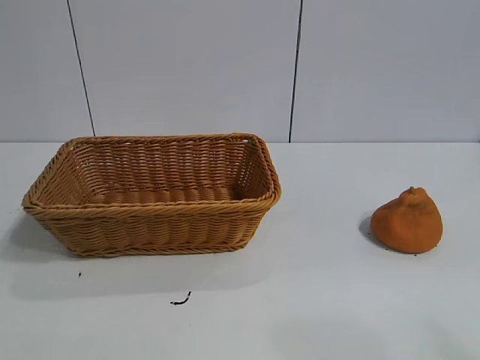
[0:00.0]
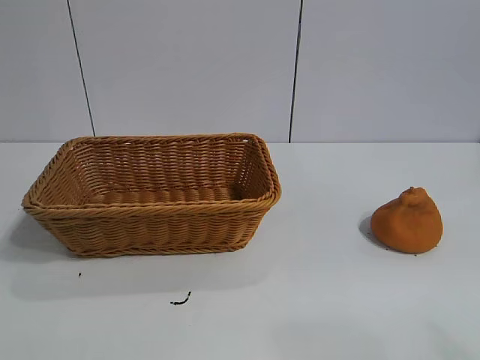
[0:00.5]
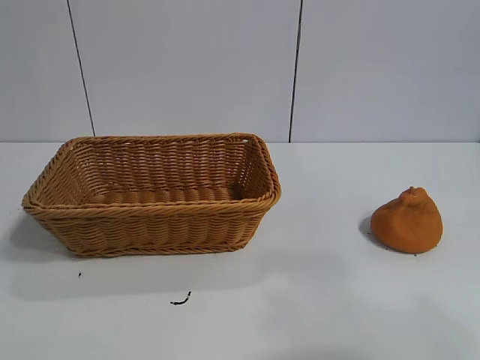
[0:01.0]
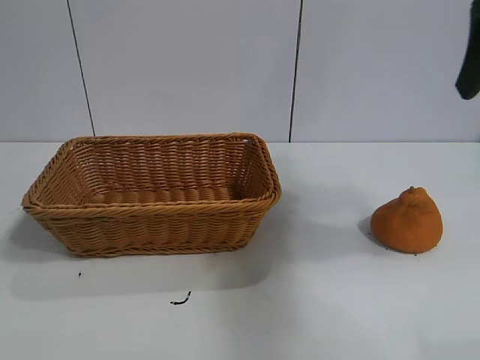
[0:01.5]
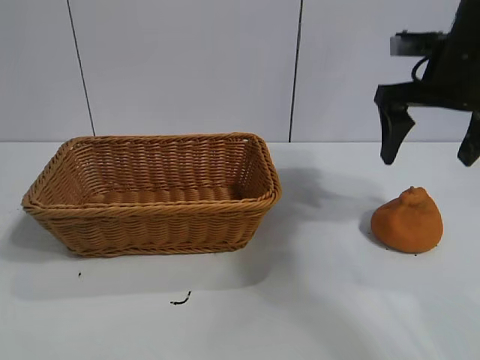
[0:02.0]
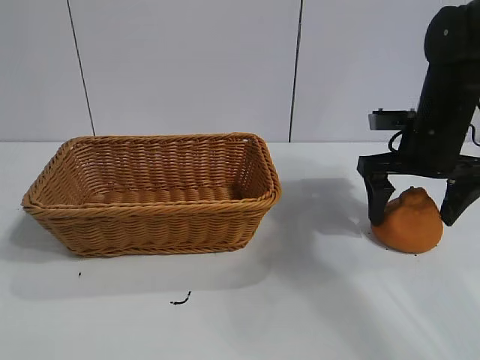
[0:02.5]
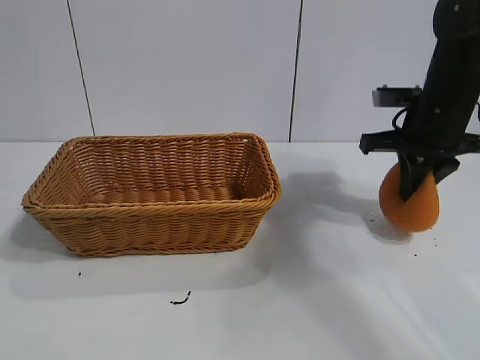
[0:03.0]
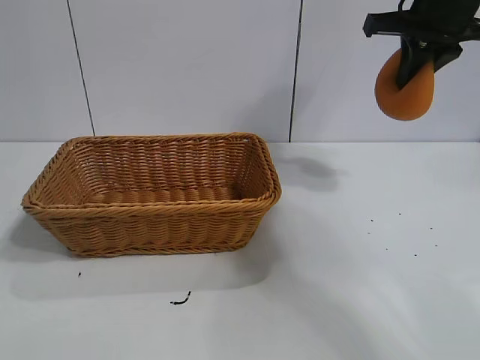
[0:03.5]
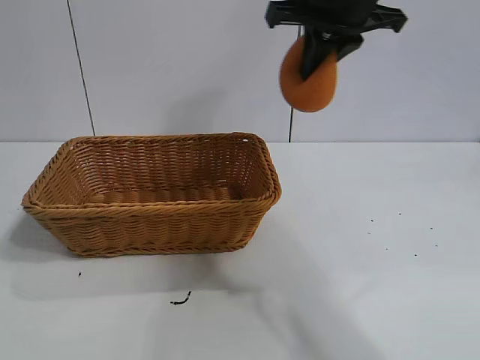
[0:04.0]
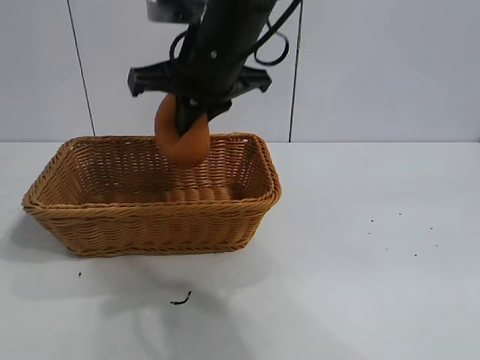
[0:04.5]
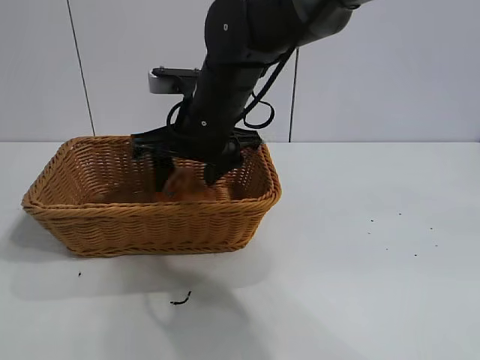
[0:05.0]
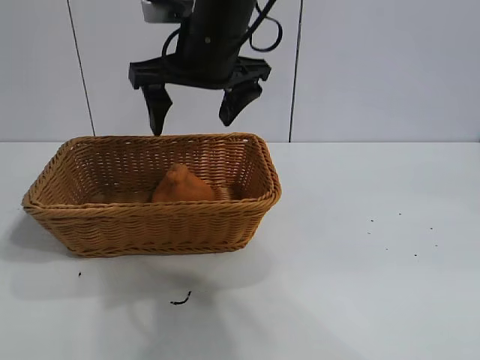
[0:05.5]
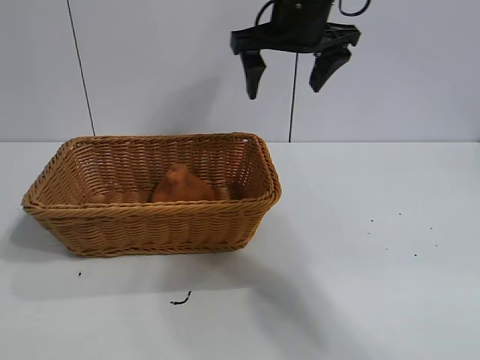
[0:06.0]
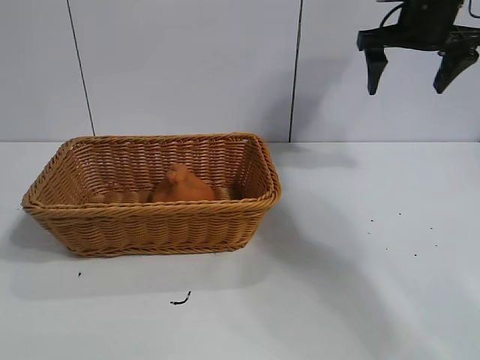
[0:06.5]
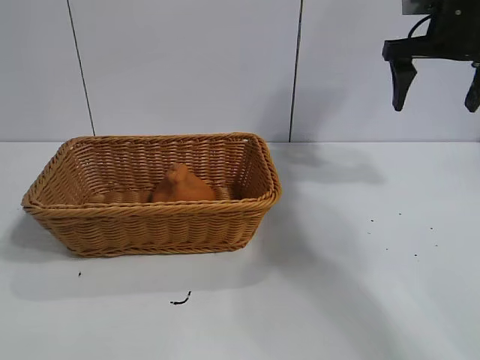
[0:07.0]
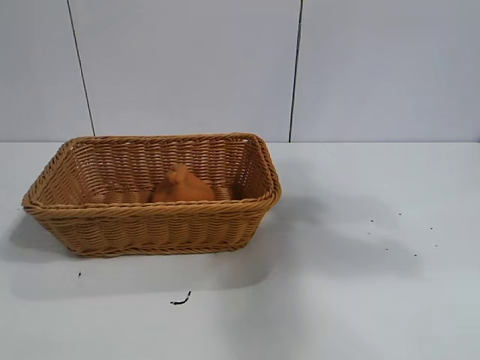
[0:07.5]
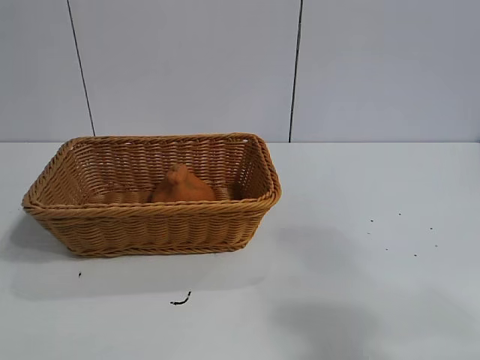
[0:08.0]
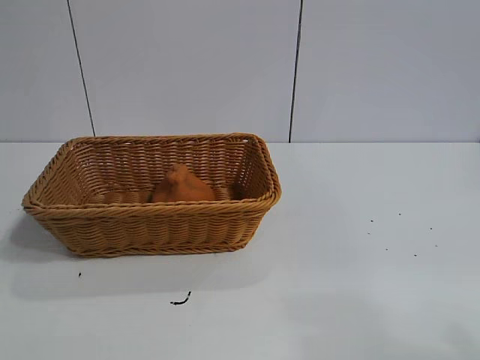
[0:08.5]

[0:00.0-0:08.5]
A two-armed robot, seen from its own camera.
Task of the whole recording: pick up the orange and put it into the basket.
Step, 0:01.0 to 0:02.5: Grasp the orange with right gripper.
Step, 0:03.0 to 0:05.0: Place the orange in the basket with right gripper.

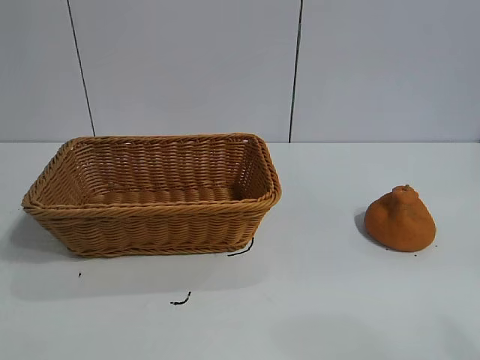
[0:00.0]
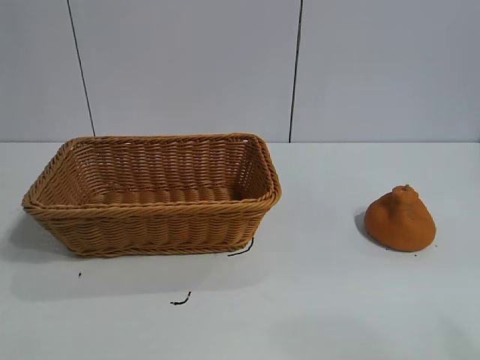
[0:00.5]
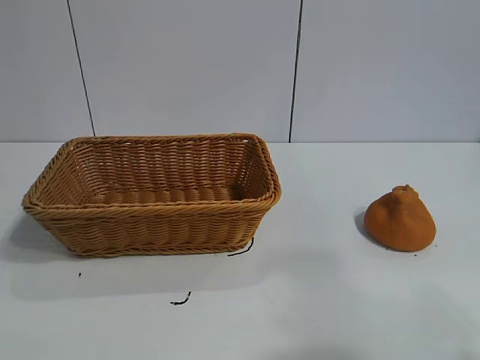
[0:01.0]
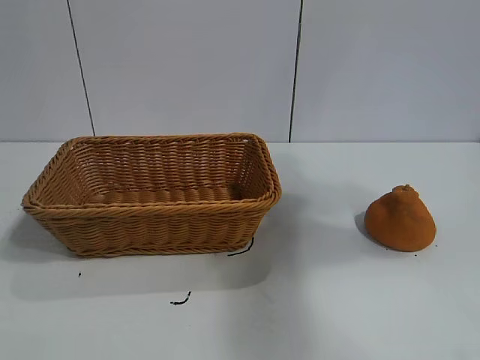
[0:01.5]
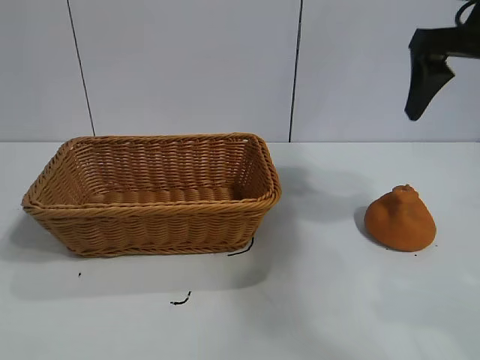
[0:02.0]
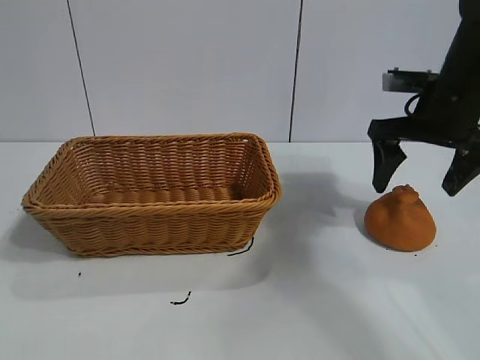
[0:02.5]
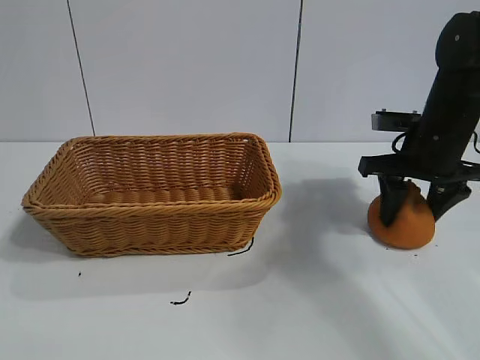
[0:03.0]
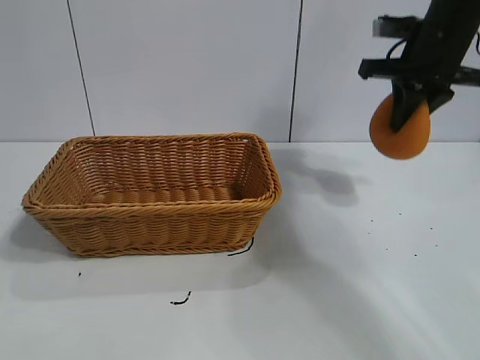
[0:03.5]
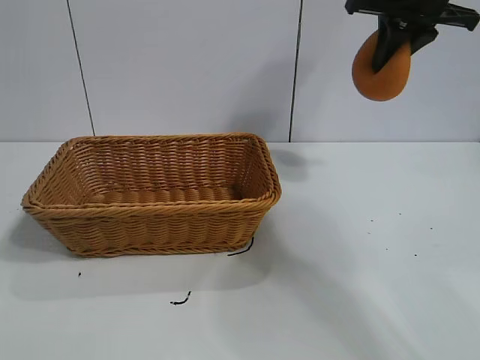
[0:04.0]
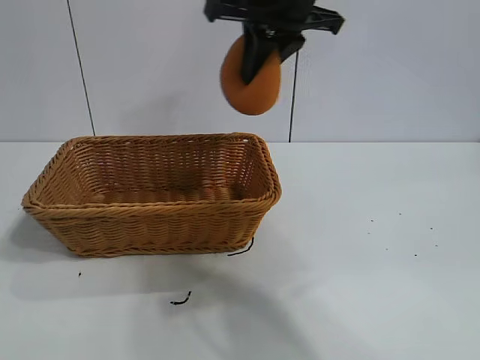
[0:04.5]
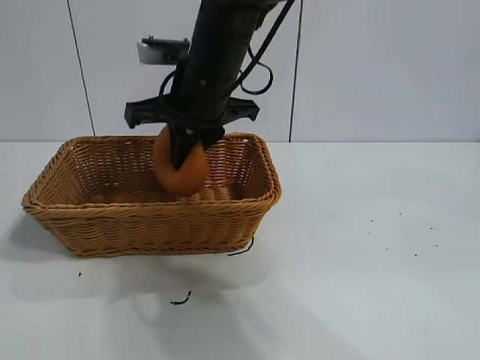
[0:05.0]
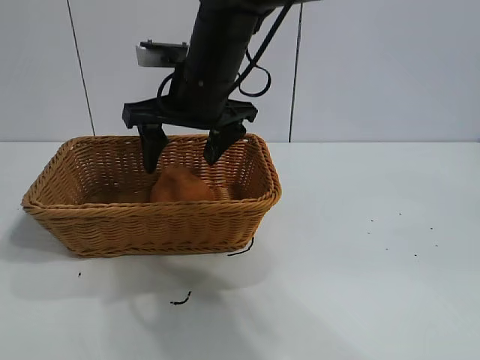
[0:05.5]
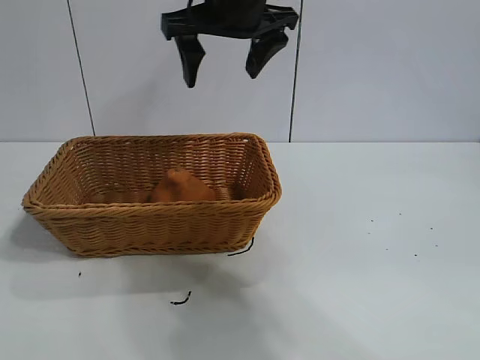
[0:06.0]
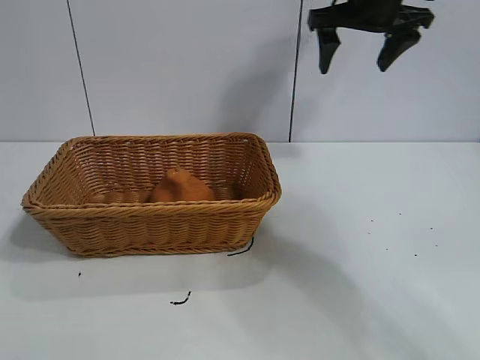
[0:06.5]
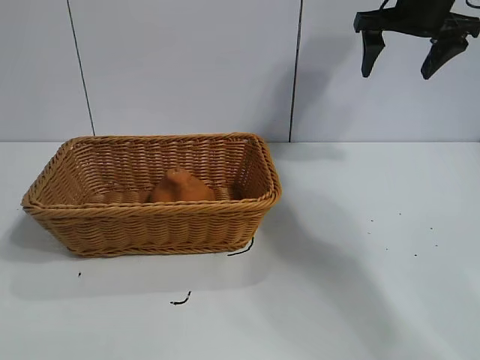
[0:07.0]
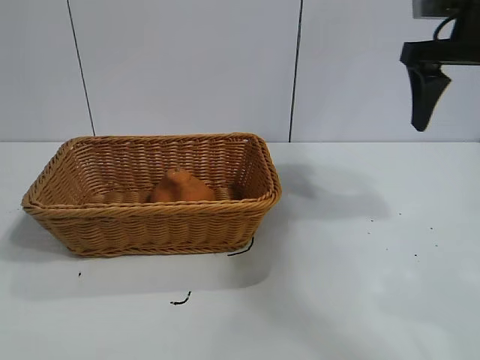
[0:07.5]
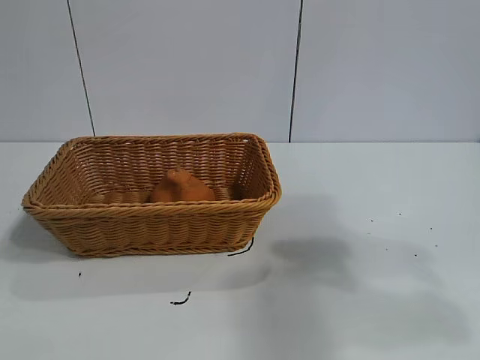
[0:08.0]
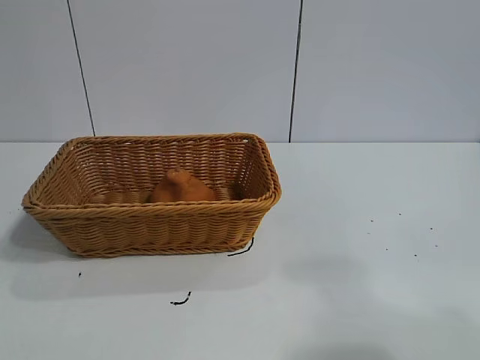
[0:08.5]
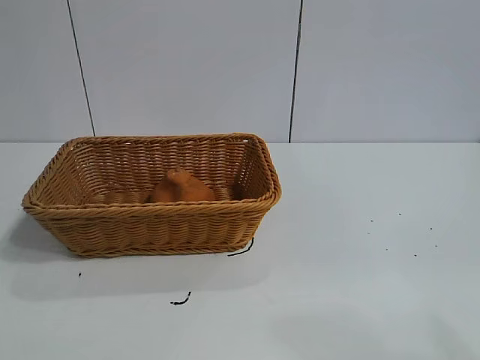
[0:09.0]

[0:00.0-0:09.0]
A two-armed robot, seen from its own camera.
Task of the whole recording: pick up the orange and put it into the basket.
Step, 0:01.0 to 0:03.0: Grasp the orange with right gripper.
Step, 0:03.5 to 0:05.0: Place the orange in the basket with right gripper.

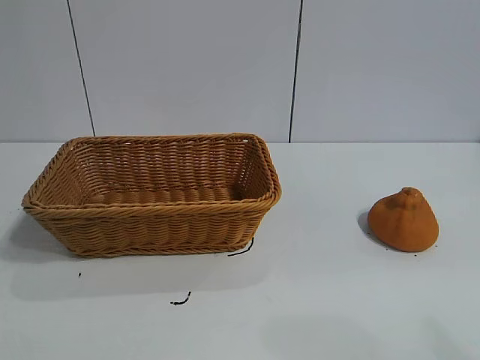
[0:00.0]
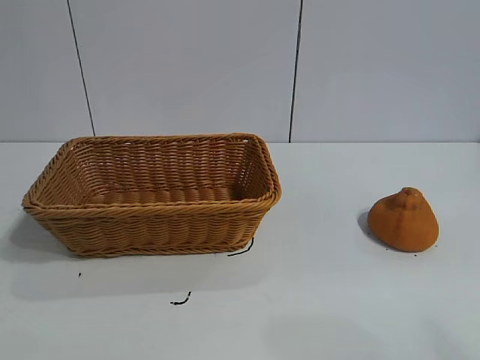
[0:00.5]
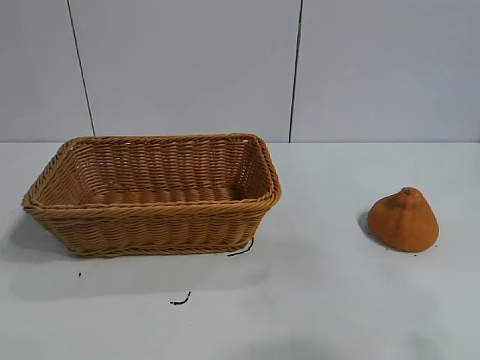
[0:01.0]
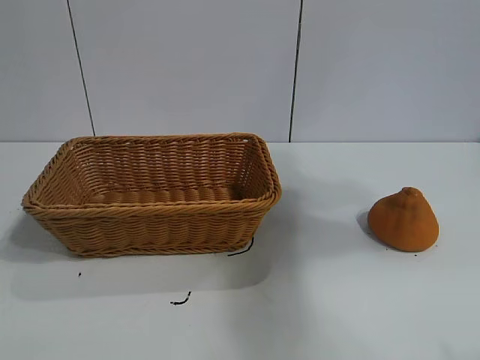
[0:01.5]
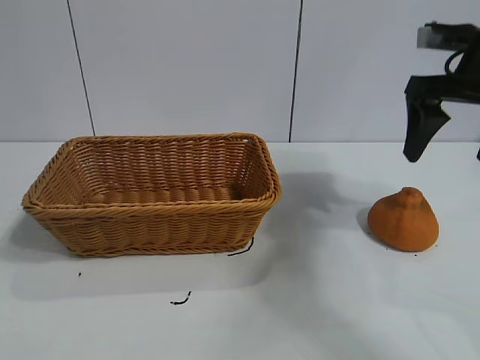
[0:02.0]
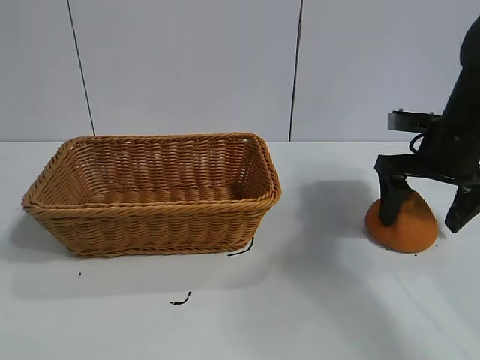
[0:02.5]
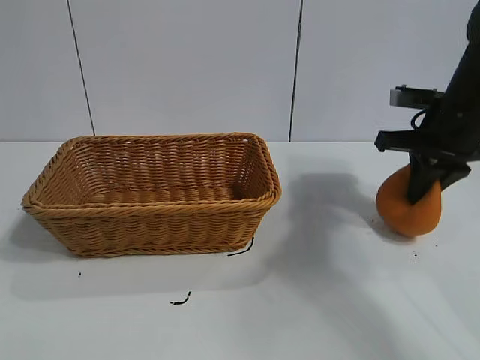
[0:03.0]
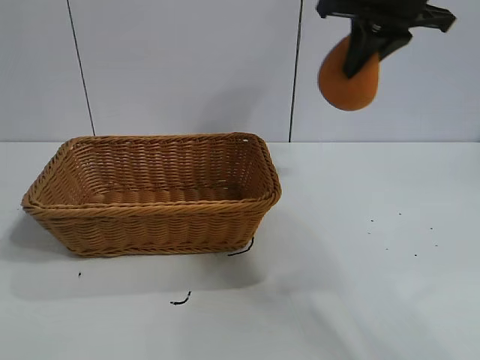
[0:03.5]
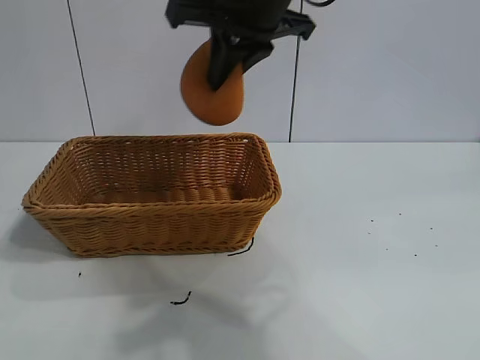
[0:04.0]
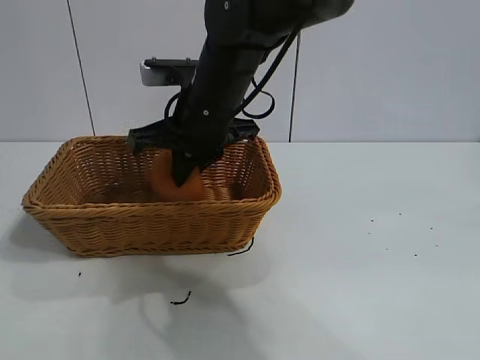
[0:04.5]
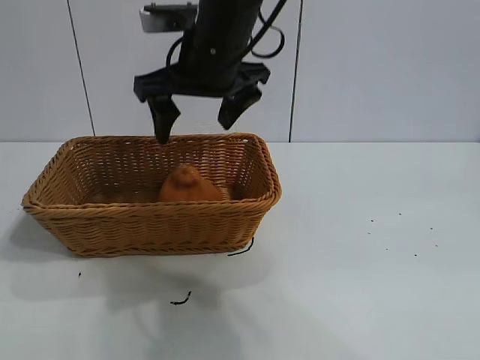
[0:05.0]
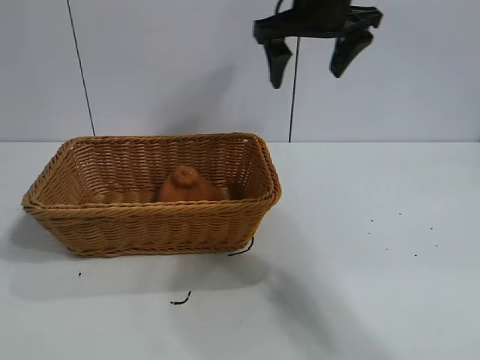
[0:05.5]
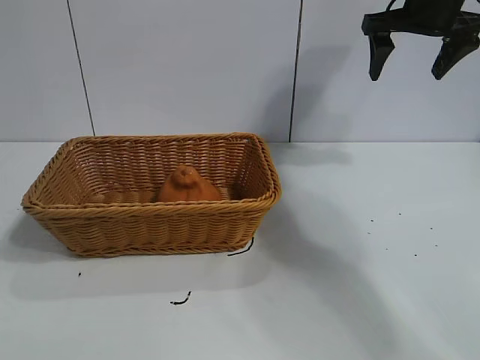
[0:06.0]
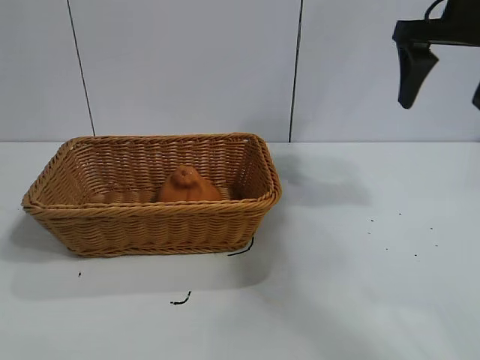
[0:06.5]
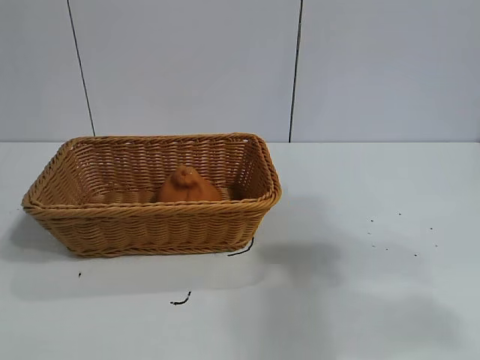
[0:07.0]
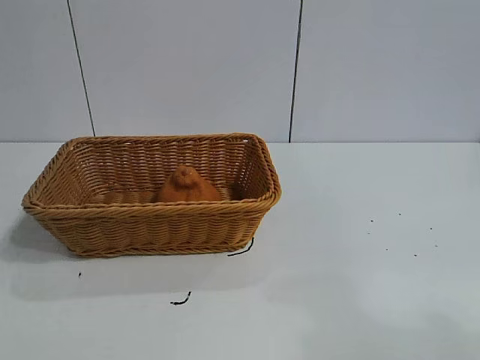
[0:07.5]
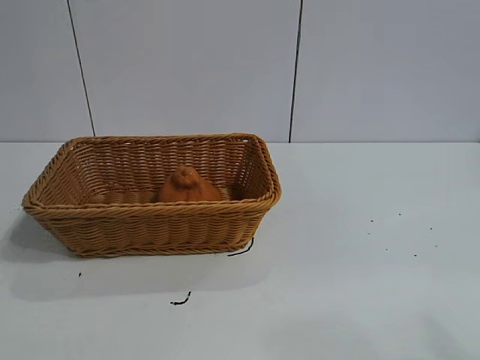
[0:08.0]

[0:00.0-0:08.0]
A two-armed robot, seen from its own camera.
Task of the whole recording: pick up the orange and put it into the basket.
Step, 0:01.0 to 0:02.5: Grasp the orange with right gripper.
Step, 0:03.5 to 0:04.5: Place the orange in the basket with right gripper.
